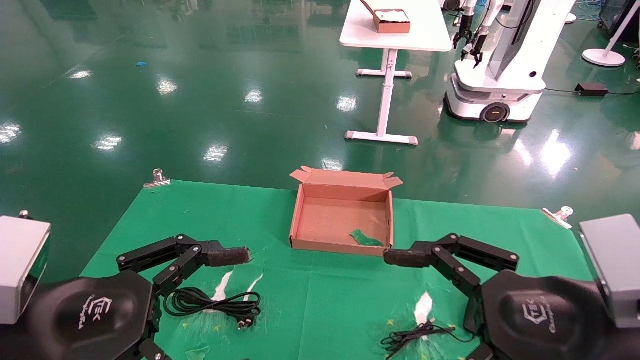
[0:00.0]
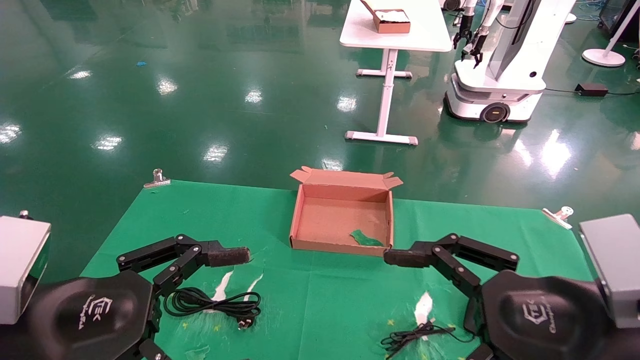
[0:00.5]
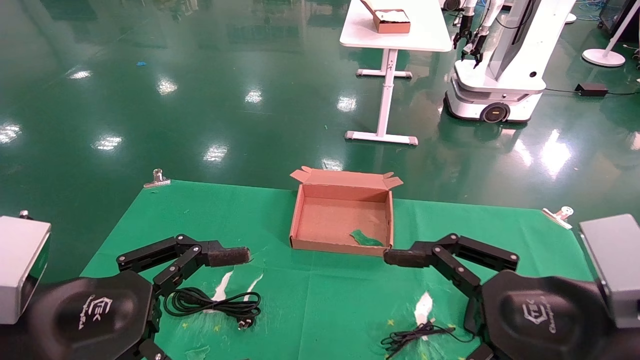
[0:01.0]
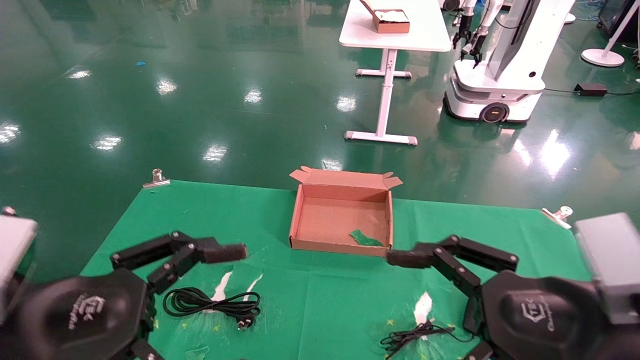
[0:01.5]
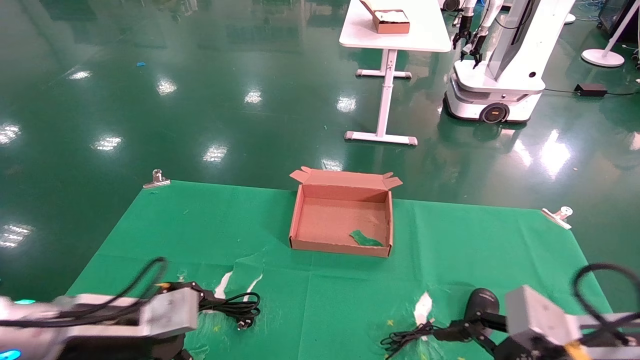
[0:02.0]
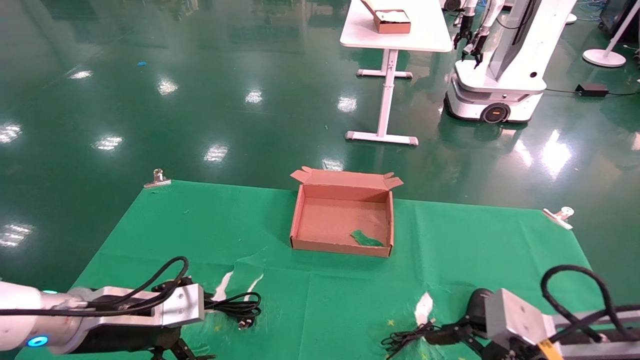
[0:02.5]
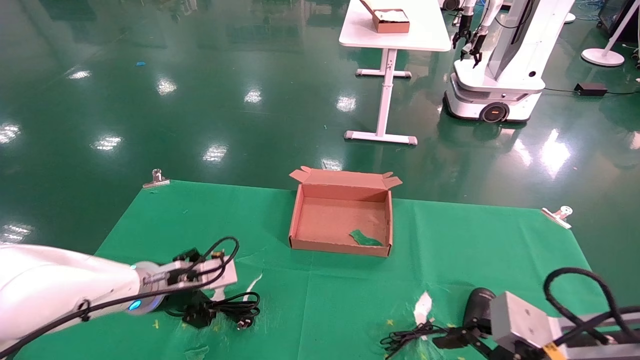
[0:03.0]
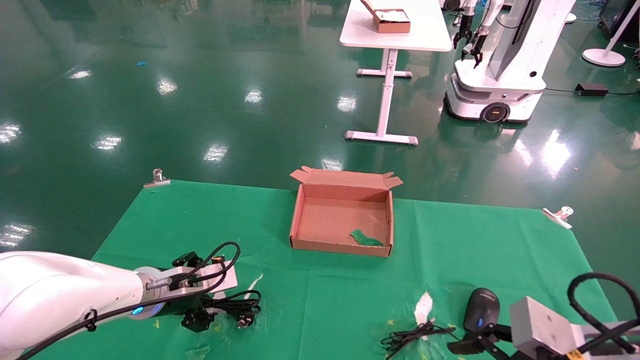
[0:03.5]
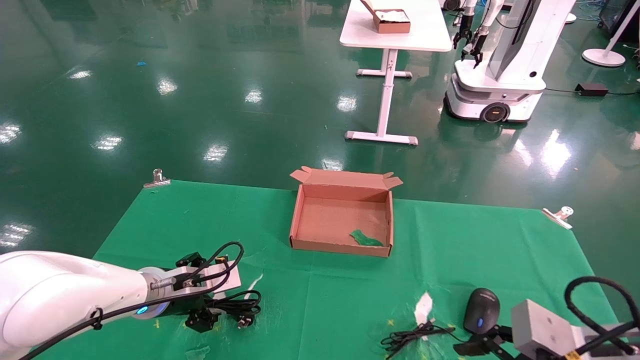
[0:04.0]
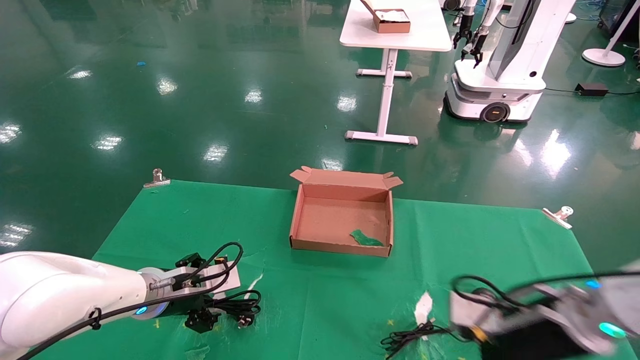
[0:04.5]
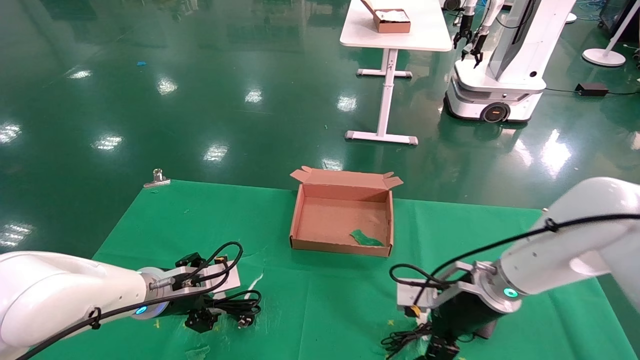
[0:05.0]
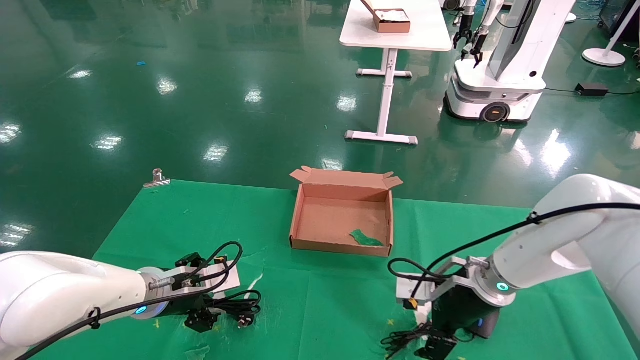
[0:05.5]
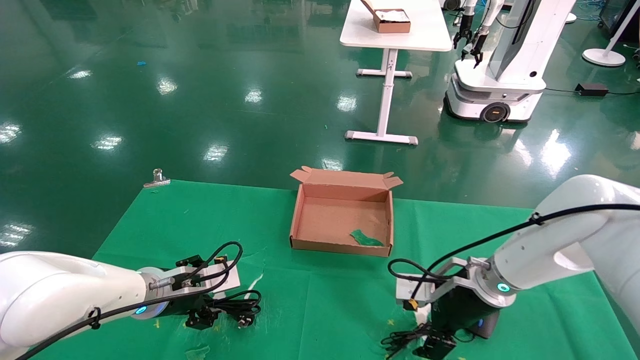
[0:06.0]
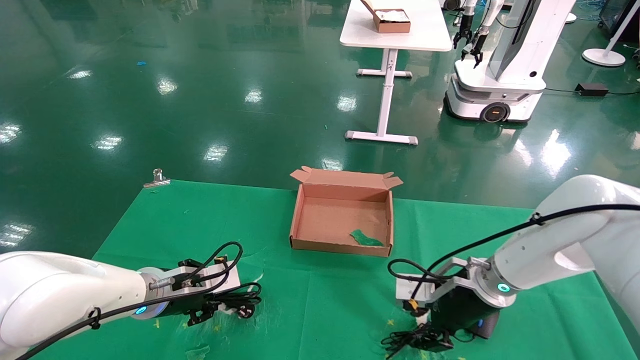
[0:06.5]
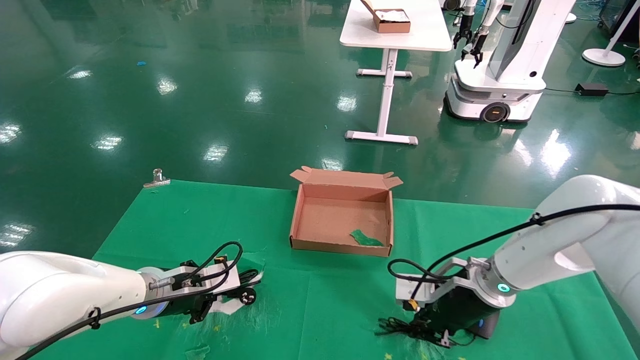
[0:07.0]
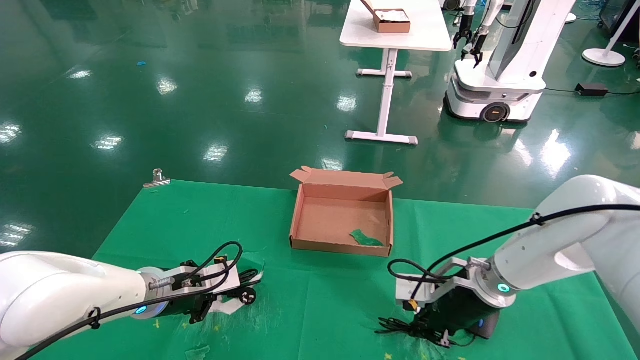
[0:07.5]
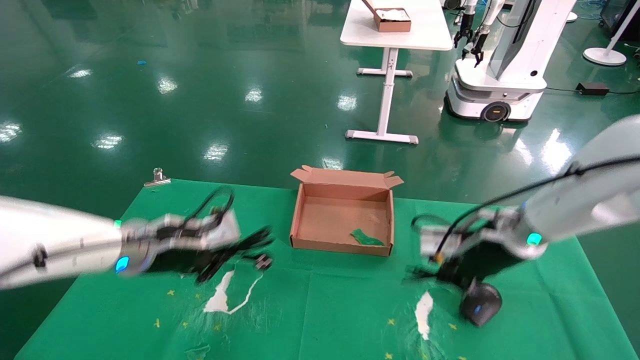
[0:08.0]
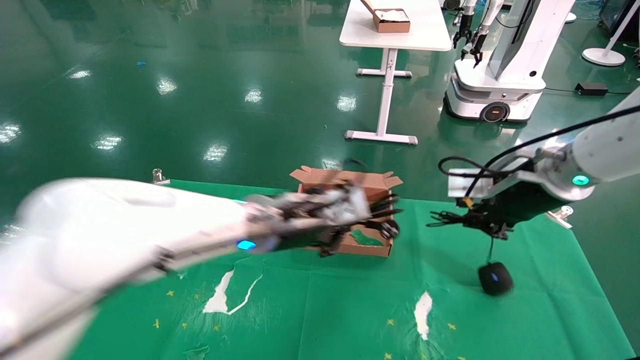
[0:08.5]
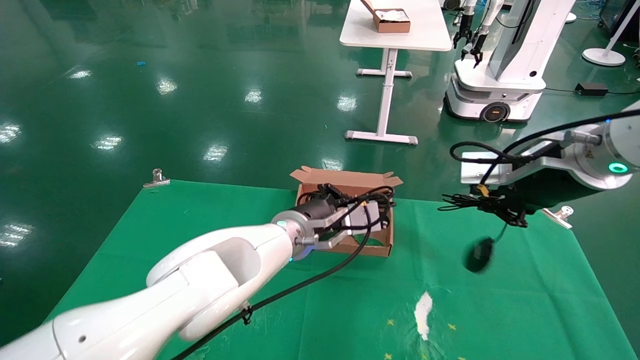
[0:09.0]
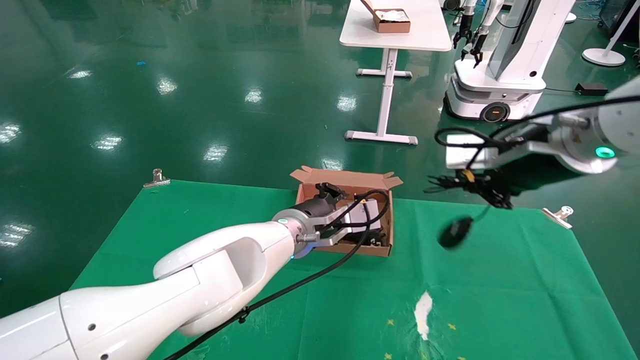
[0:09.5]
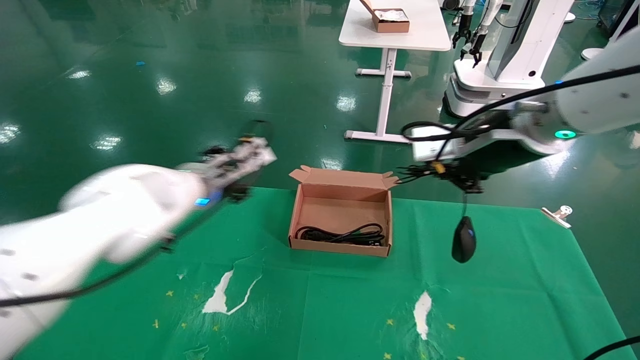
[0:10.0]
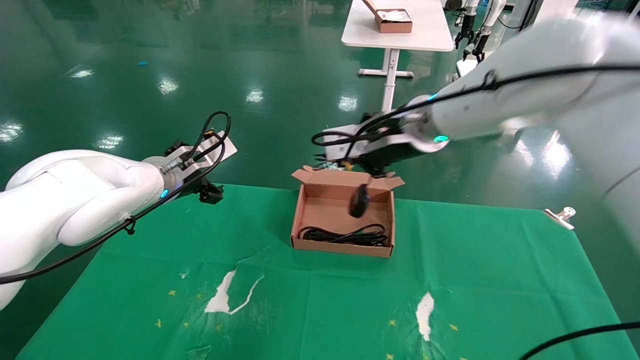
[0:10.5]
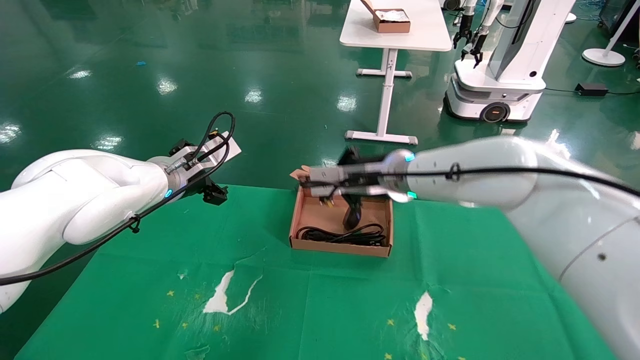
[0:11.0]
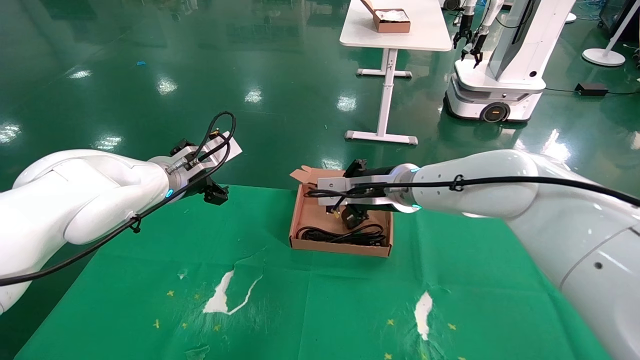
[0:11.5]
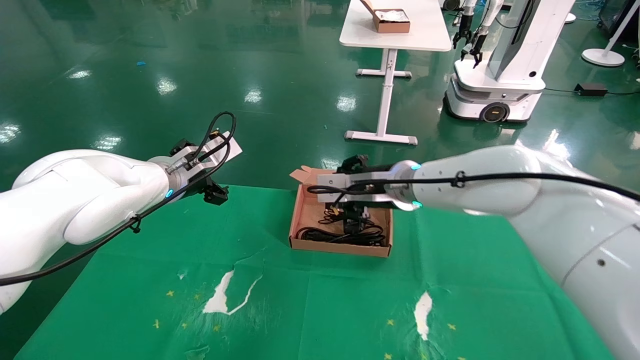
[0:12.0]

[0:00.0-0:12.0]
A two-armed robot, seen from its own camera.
Step, 0:02.5 to 0:06.0: Grab and lift both the mouse and power cord from the accessory packaging area at the same time.
Step, 0:06.5 to 0:11.5: Place the mouse and power cord into the box.
0:00.0 to 0:02.0: The right gripper goes about 5 cm downward. The left gripper is displaced forward and downward by some 10 cm.
0:02.0 to 0:04.0: The left gripper heads forward, covering roughly 10 cm.
0:04.0 to 0:06.0: The right gripper goes some 20 cm forward and to the left.
0:06.0 to 0:08.0: Both grippers travel together upward, roughly 10 cm. The left gripper closes. The right gripper closes its fingers.
0:08.0 to 0:10.0: The right gripper goes some 15 cm upward and backward, while the left gripper shifts approximately 10 cm forward and upward, reaches approximately 20 cm to the right, then returns, and opens up.
0:10.0 to 0:12.0: The left gripper shifts some 5 cm to the left, and opens its fingers. Meanwhile the right gripper heads downward, forward and to the left, covering roughly 20 cm.

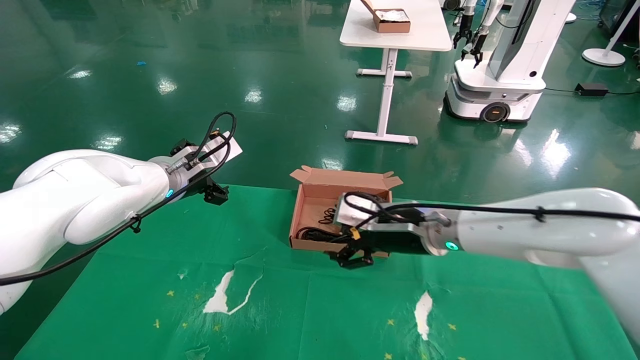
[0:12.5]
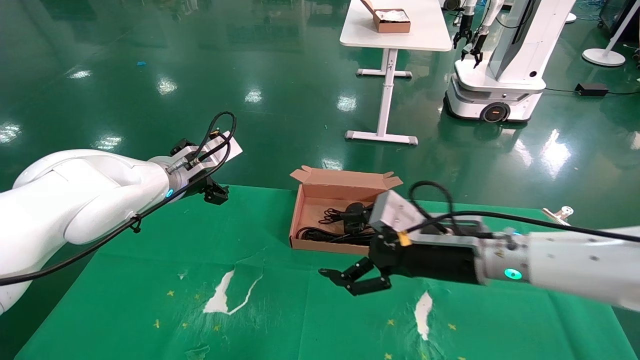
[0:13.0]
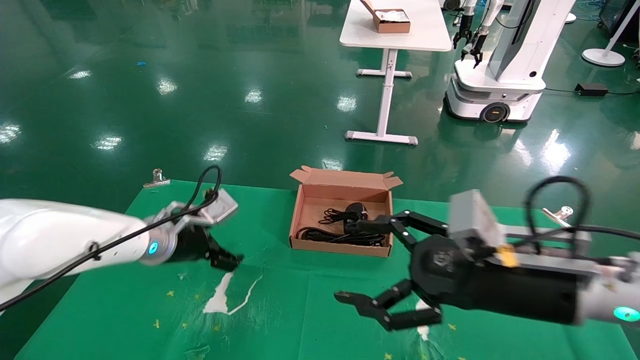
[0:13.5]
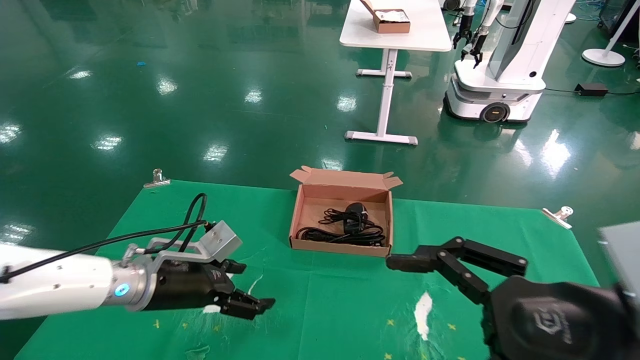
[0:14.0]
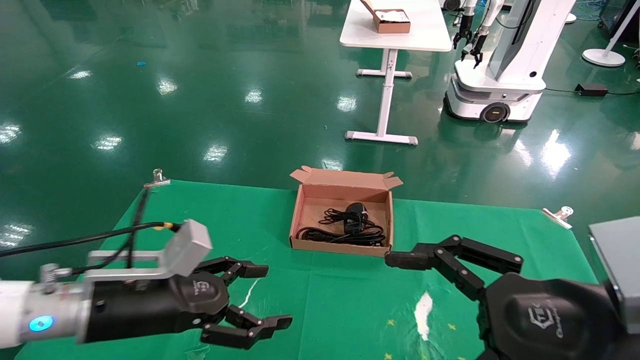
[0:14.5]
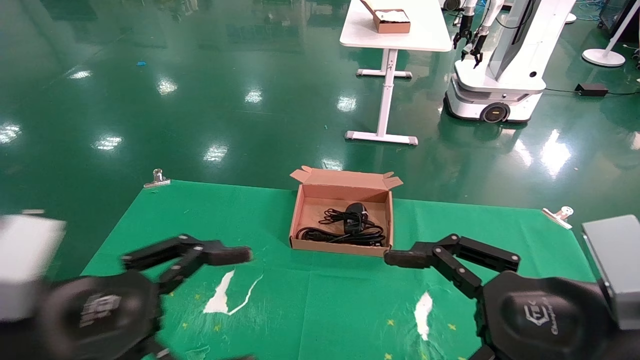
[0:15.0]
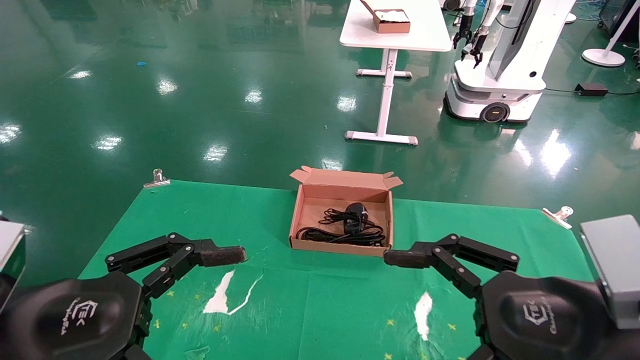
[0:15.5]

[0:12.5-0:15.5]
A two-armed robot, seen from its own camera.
0:12.5 to 0:14.0: The right gripper shifts about 25 cm backward and to the right. Meanwhile the left gripper shifts approximately 15 cm downward and backward.
0:14.0 to 0:15.5: The left gripper heads backward, covering about 20 cm.
